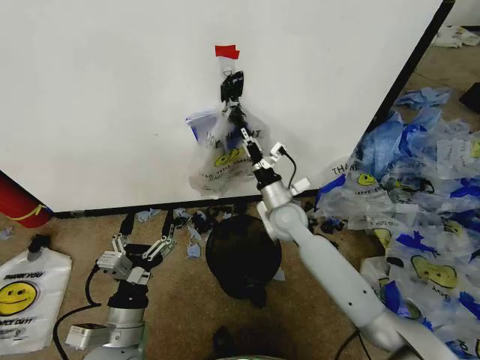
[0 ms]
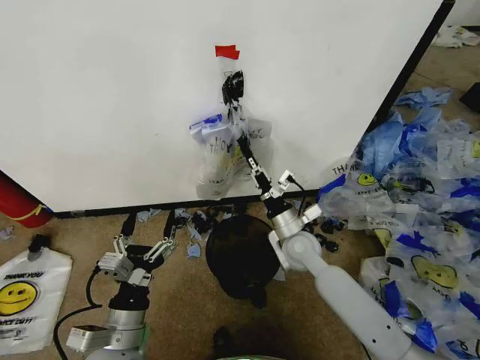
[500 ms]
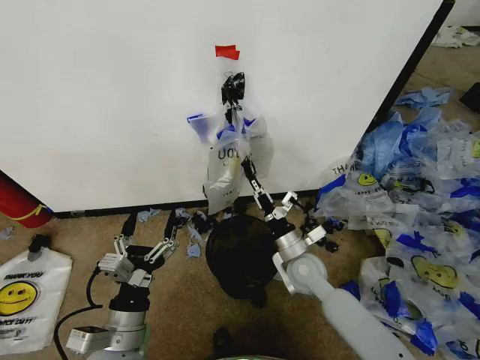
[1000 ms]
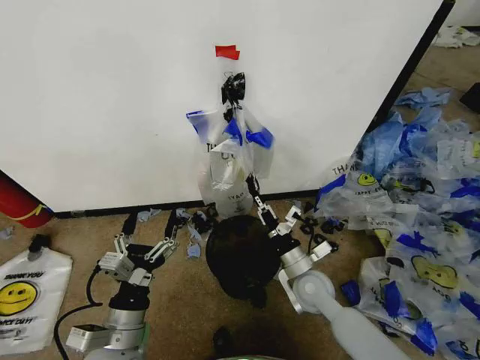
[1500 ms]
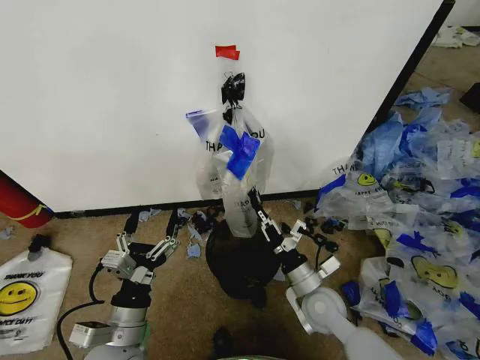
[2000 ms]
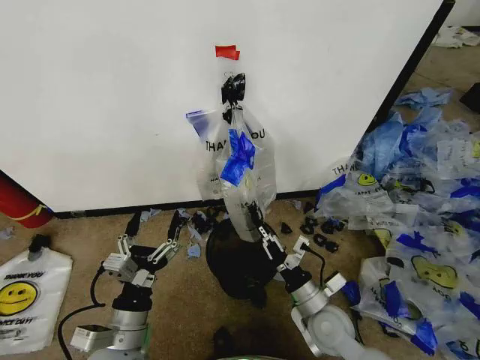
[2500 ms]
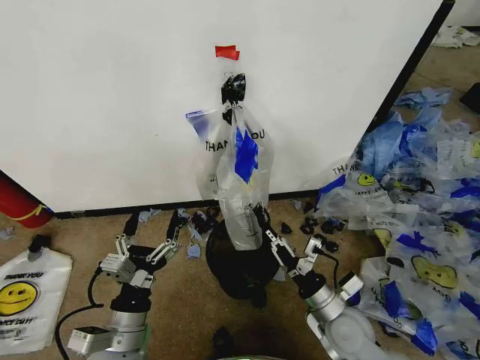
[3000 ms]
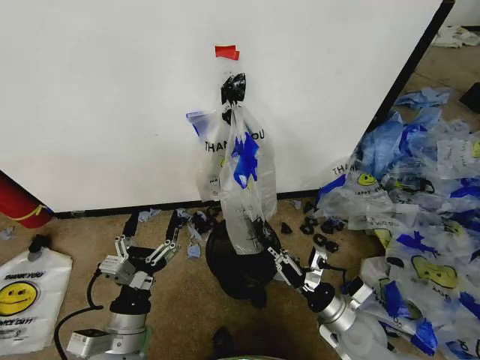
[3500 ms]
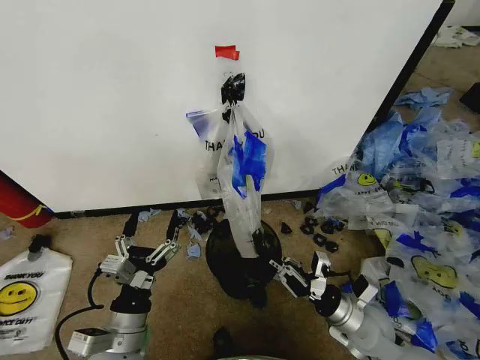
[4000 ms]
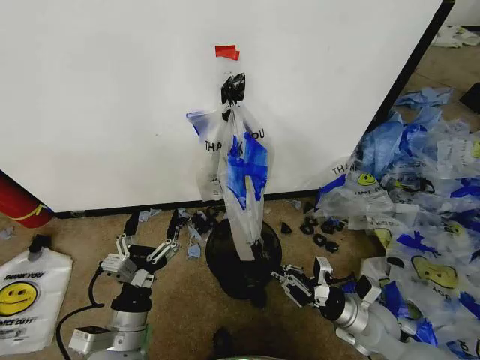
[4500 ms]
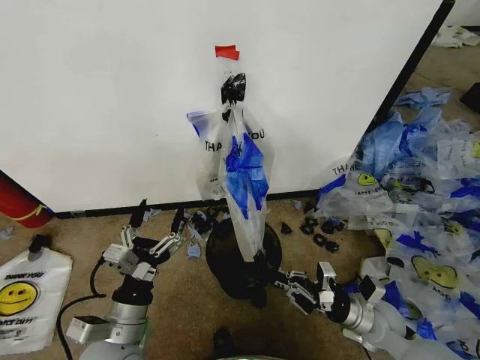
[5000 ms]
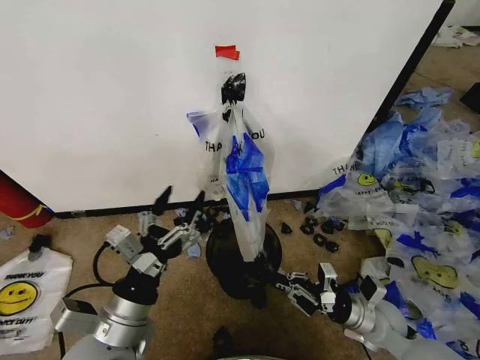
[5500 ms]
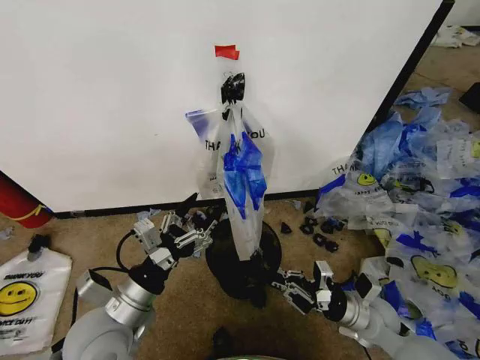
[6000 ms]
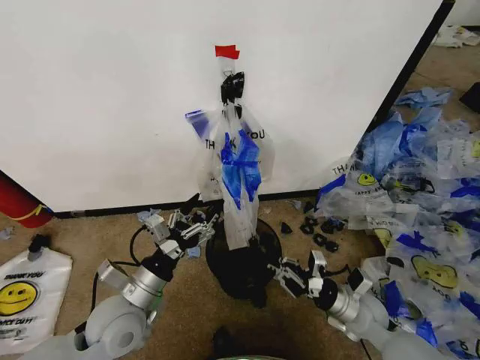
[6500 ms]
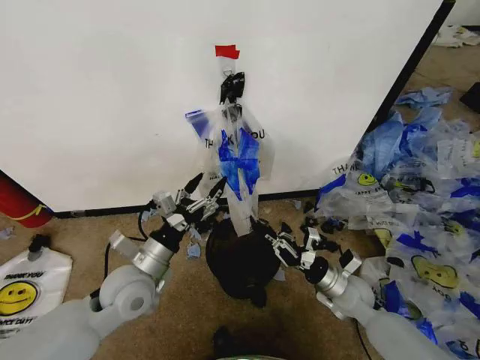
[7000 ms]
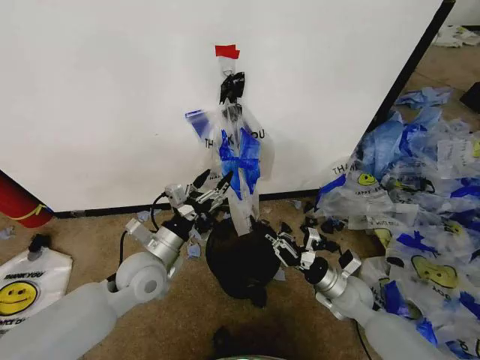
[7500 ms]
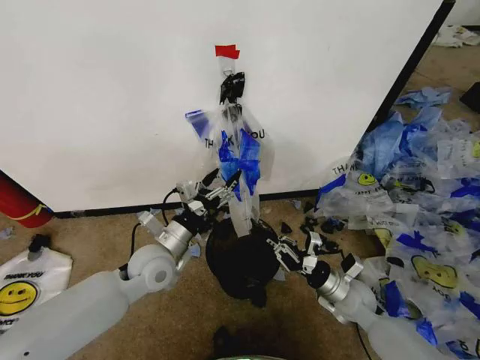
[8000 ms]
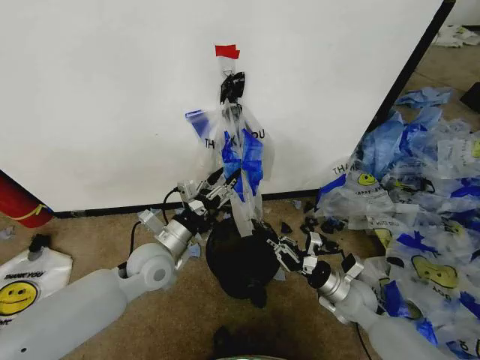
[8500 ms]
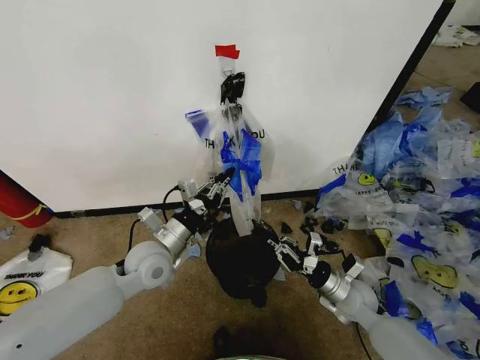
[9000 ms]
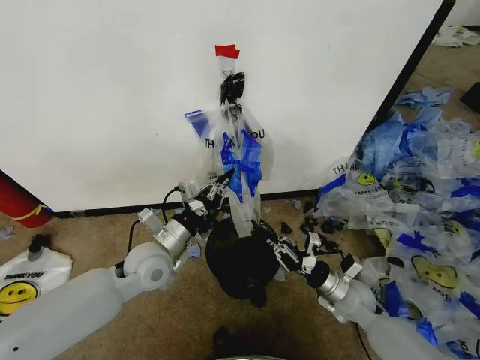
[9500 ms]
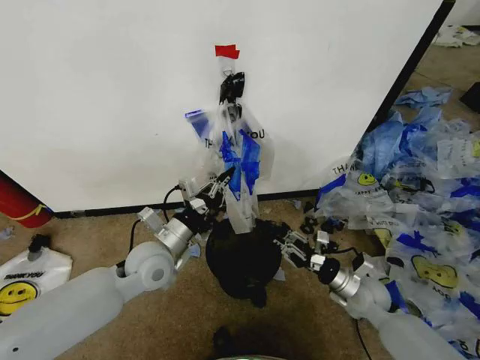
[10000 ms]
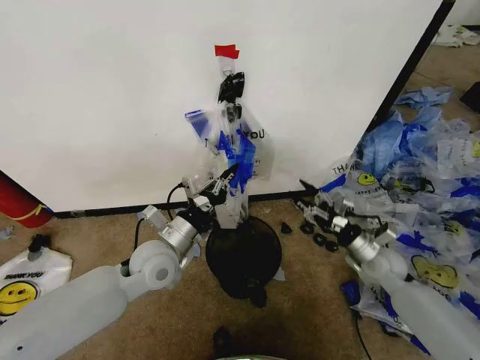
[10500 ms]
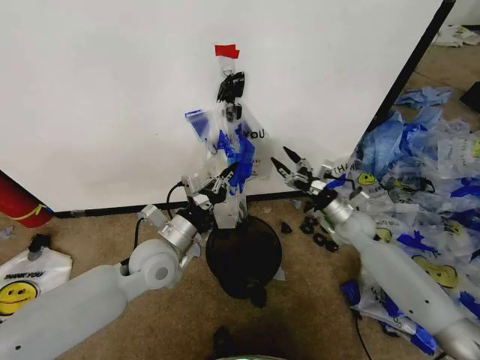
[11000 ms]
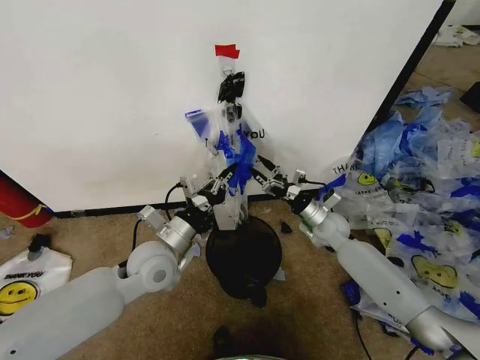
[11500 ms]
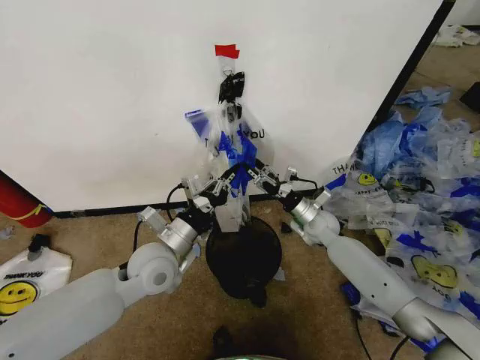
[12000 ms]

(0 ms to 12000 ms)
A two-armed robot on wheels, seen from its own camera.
Task of the whole recording: Pick up the garbage bag from the wall and place it over the trash bin.
0 ms - 2000 ms: The right gripper travels backward and downward by about 20 cm.
2000 ms - 4000 ms: The right gripper goes about 10 cm to the right.
4000 ms - 6000 ms: The left gripper is displaced upward by about 5 cm.
6000 ms - 8000 ms: The left gripper goes approximately 15 cm forward. The right gripper moves roughly 5 cm.
8000 ms - 10000 ms: The left gripper closes its fingers.
10000 ms - 12000 ms: The right gripper shifts about 20 cm forward and to the left, and opens its fingers.

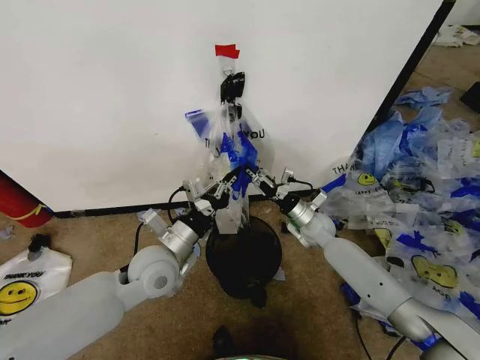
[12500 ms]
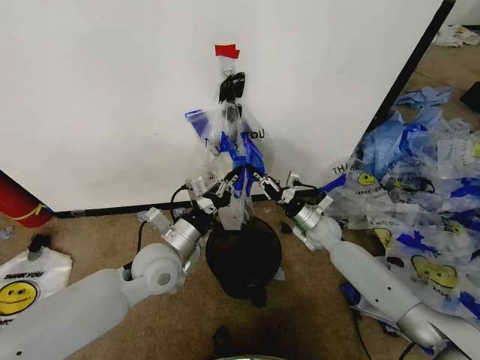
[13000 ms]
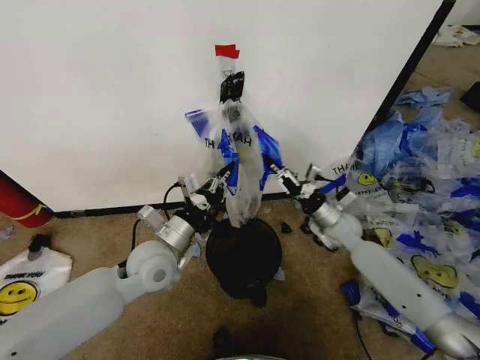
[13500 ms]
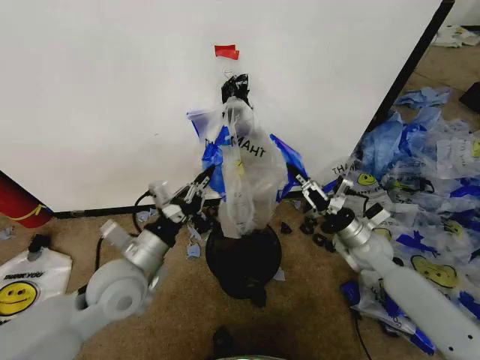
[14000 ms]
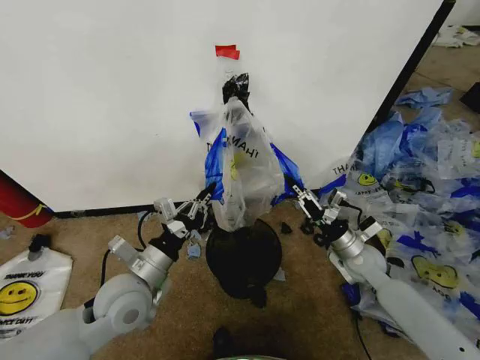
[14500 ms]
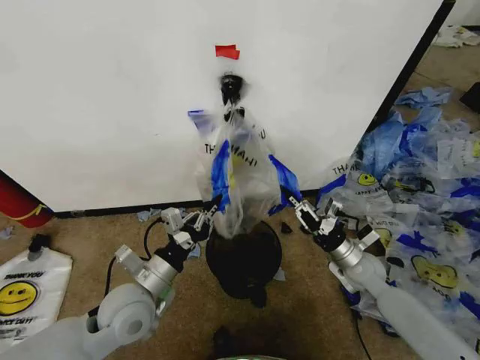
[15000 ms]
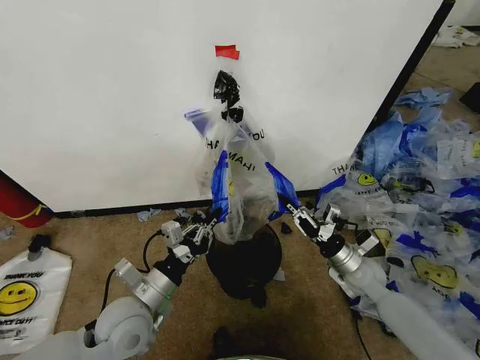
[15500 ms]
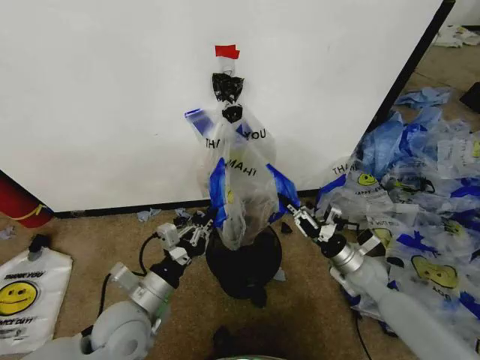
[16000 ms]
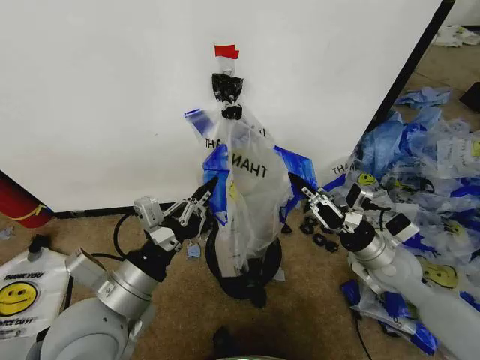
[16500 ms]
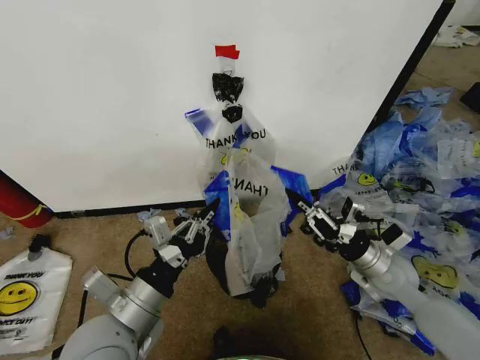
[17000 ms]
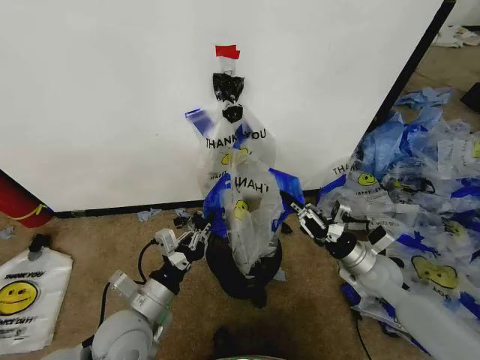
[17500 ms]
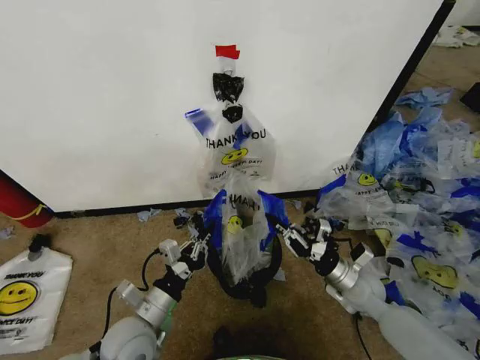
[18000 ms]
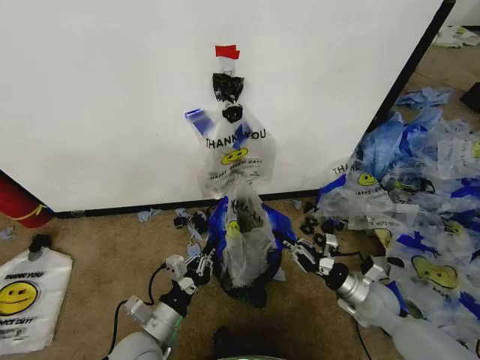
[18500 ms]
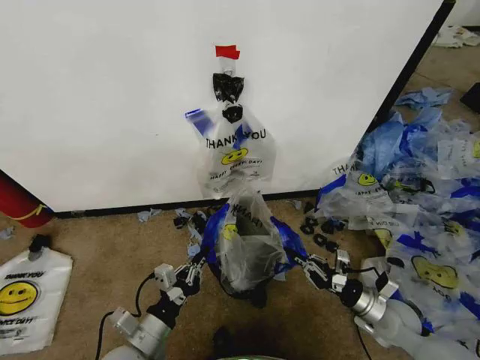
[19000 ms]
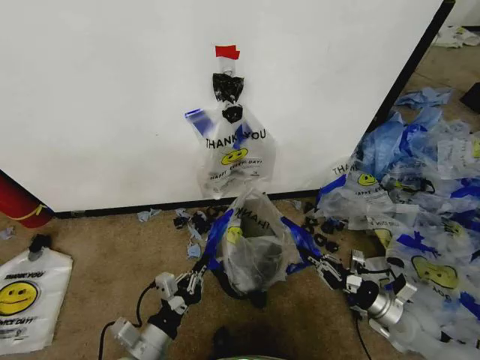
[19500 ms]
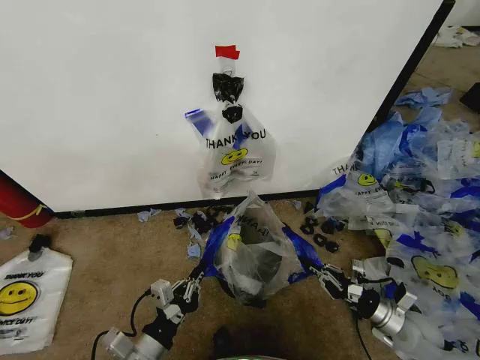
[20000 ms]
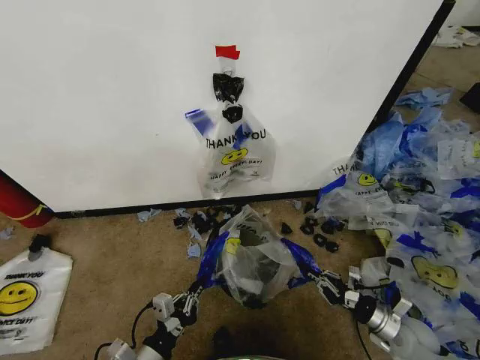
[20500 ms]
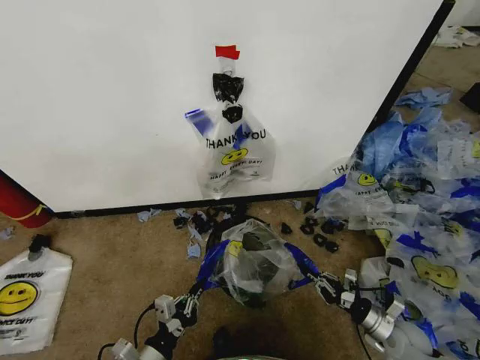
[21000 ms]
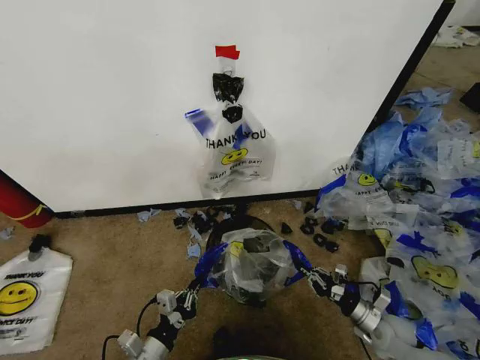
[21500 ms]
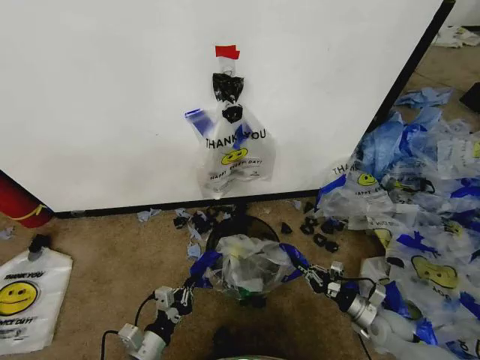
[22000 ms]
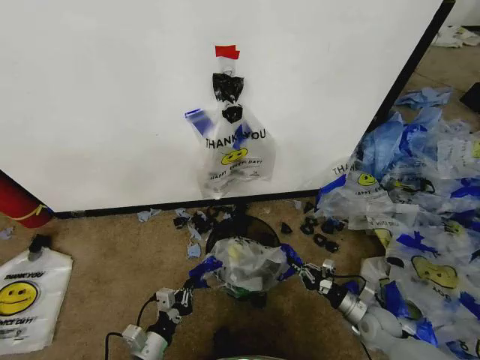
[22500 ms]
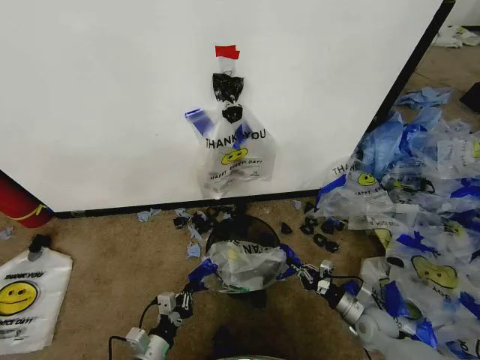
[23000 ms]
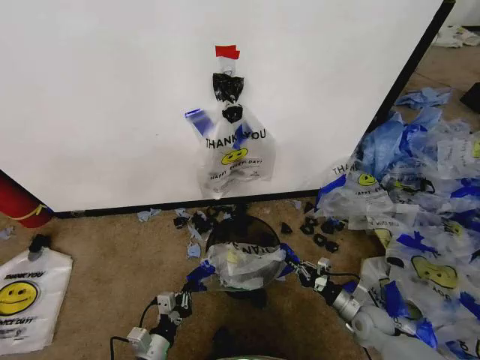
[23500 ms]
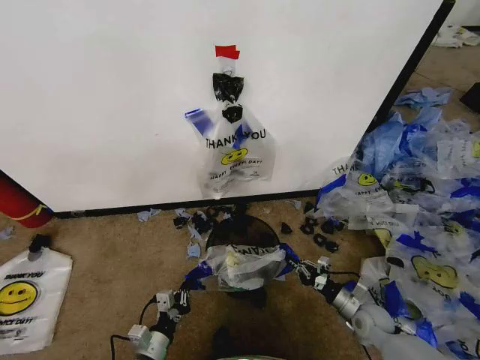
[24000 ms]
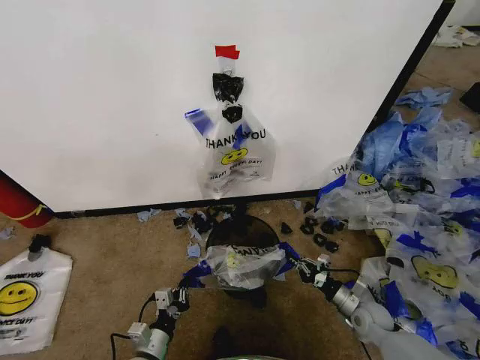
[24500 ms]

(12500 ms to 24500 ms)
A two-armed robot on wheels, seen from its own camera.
Task of the whole recording: Pick up the garbage bag from the wall and place it over the trash bin.
12500 ms - 14500 ms: The left gripper goes roughly 5 cm backward, while the right gripper moves backward and to the right, some 15 cm, and closes up.
14500 ms - 16500 ms: The two grippers go about 10 cm upward and backward.
16500 ms - 18500 ms: The two grippers go roughly 15 cm downward.
18500 ms - 20500 ms: The right gripper heads to the right and backward, covering some 10 cm, while the left gripper shifts roughly 5 cm backward.
20500 ms - 22500 ms: Both grippers travel together downward, roughly 5 cm.
22500 ms - 24500 ms: The grippers stay close to where they were, moving slightly.

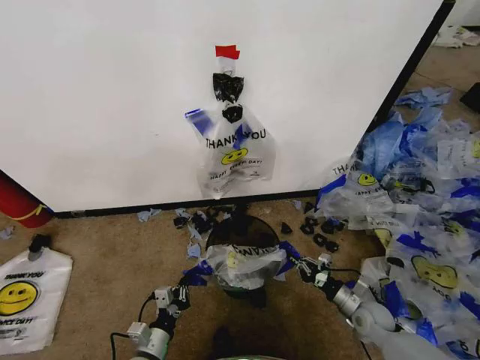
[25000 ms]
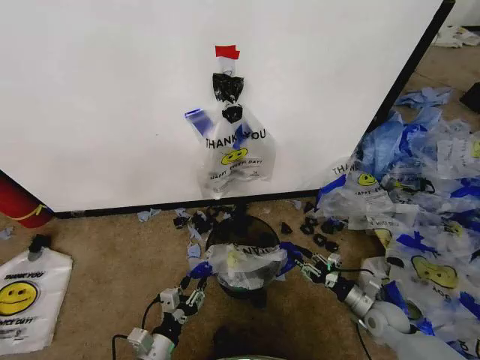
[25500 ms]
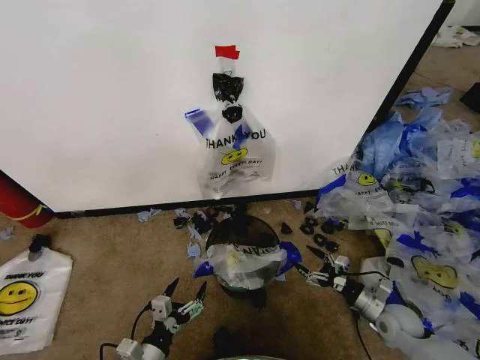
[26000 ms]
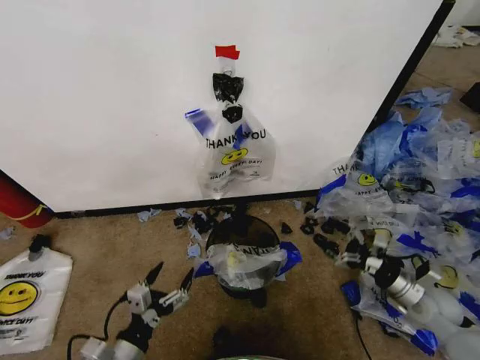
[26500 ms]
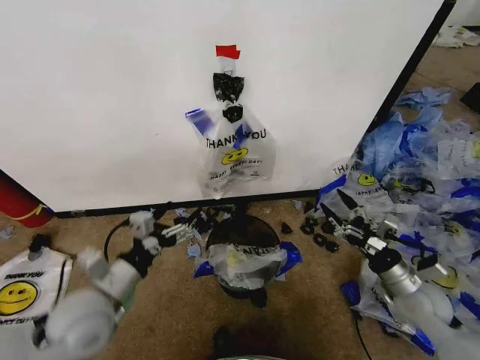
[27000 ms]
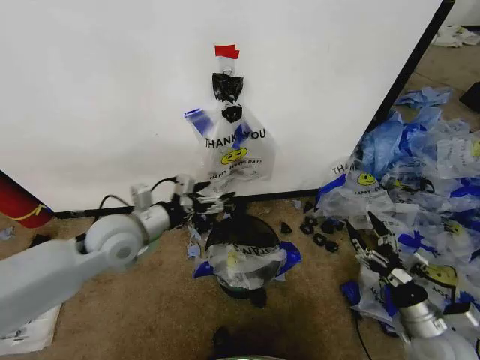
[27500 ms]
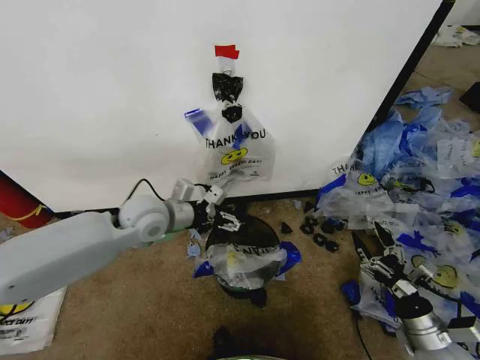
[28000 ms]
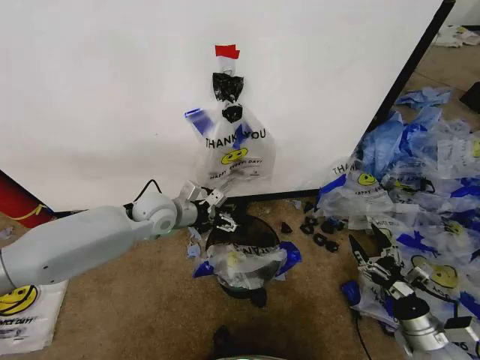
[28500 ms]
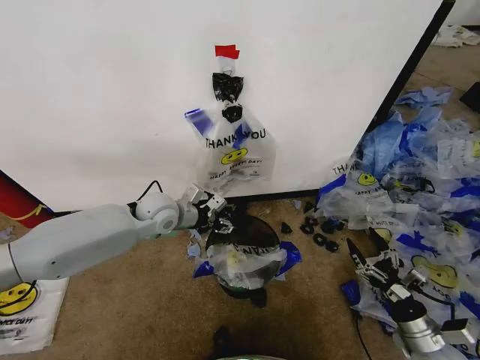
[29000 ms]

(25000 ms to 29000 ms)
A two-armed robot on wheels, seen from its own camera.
Task of the whole recording: Pick up the garbage bag from the wall and place it over the trash bin.
25000 ms - 27000 ms: Both grippers travel together upward, approximately 20 cm. The left gripper opens up; the right gripper opens.
27000 ms - 29000 ms: The left gripper goes about 25 cm forward, and closes up; the right gripper goes approximately 10 cm backward and downward.
